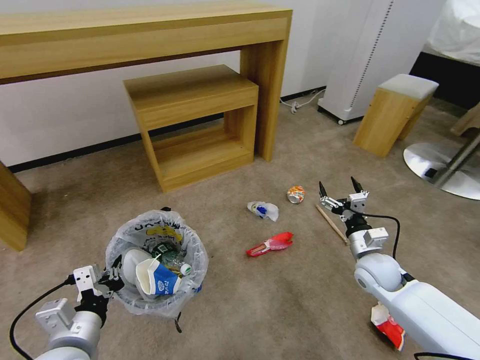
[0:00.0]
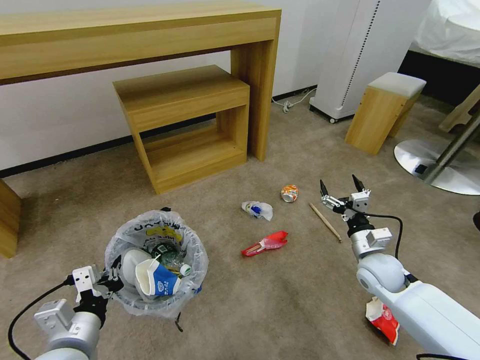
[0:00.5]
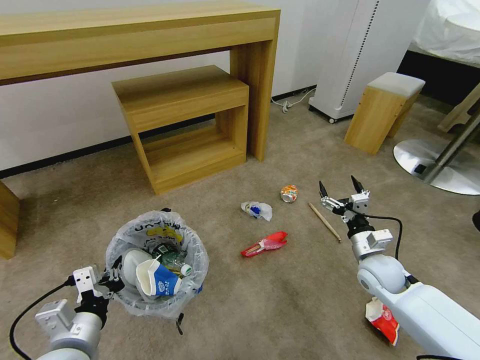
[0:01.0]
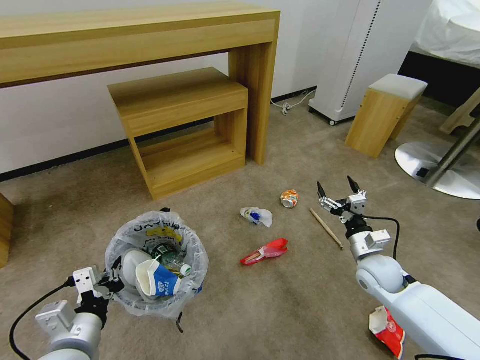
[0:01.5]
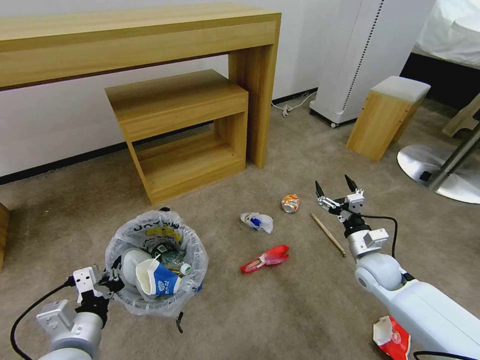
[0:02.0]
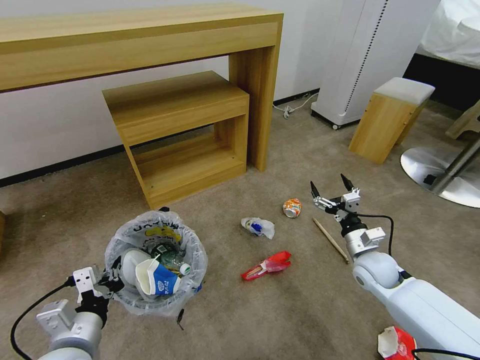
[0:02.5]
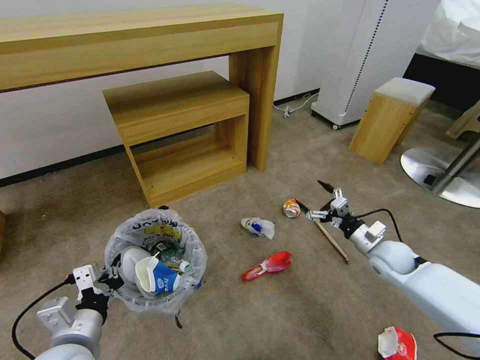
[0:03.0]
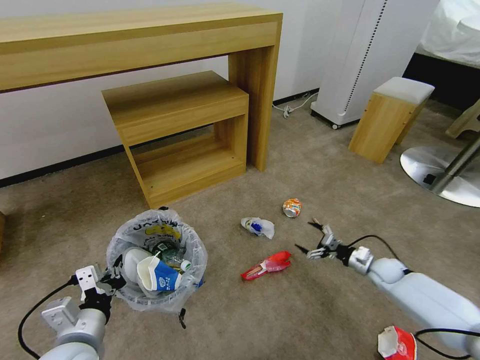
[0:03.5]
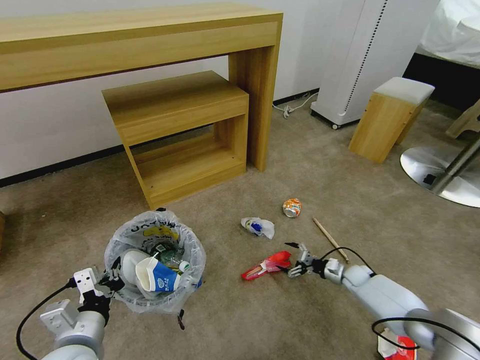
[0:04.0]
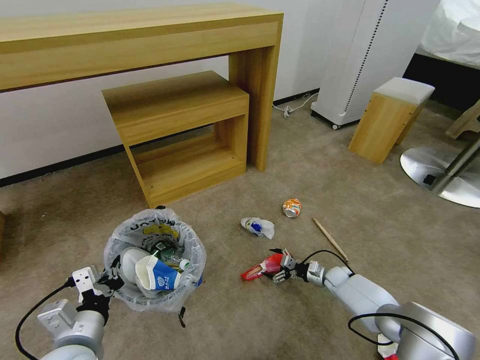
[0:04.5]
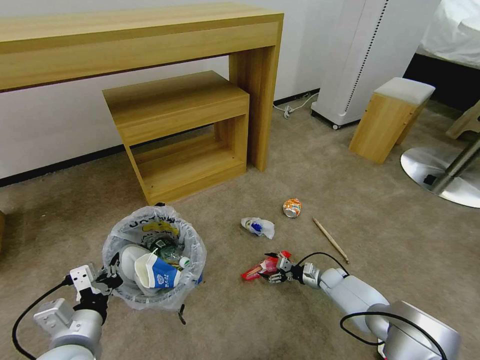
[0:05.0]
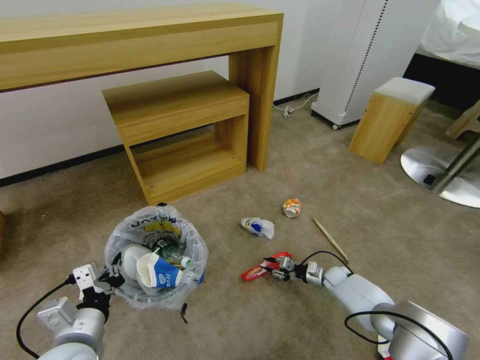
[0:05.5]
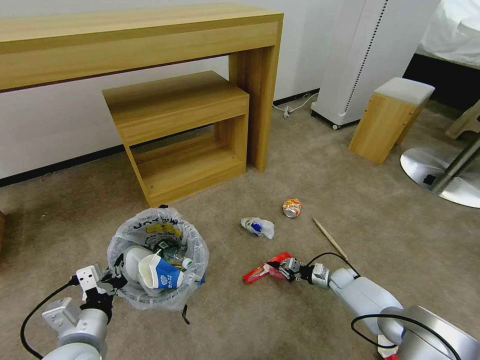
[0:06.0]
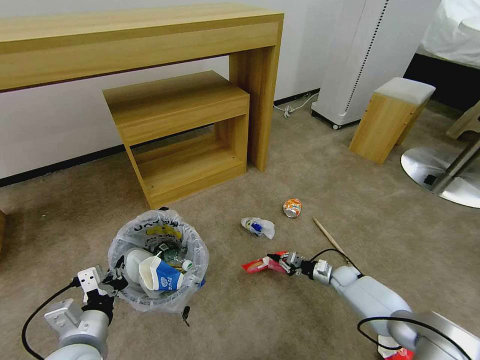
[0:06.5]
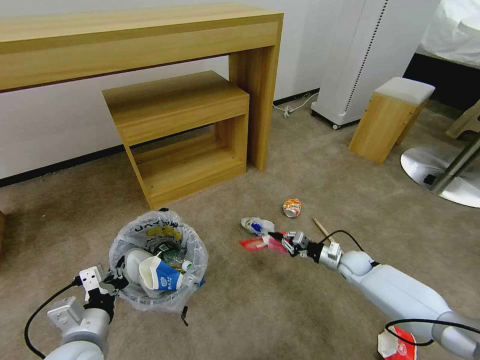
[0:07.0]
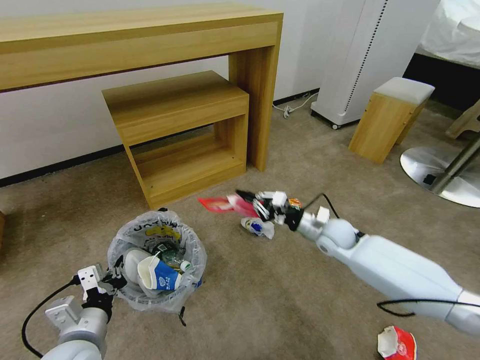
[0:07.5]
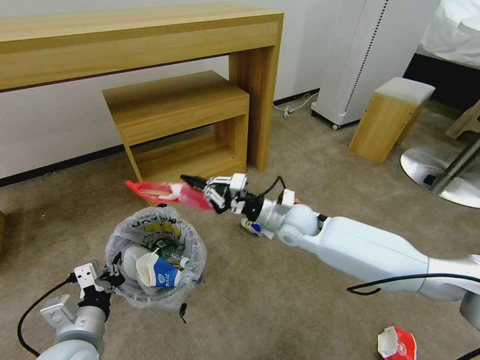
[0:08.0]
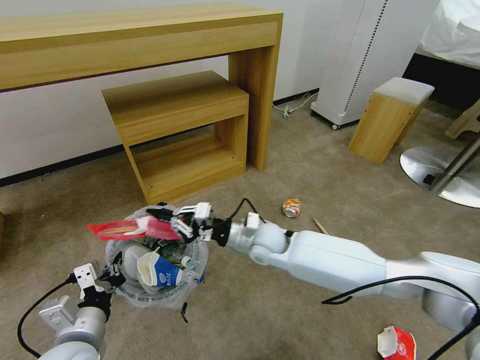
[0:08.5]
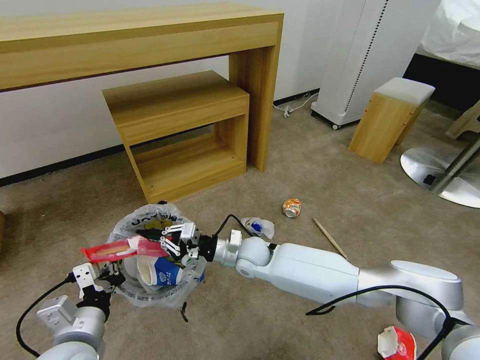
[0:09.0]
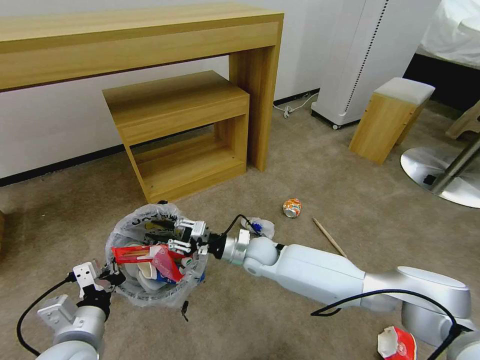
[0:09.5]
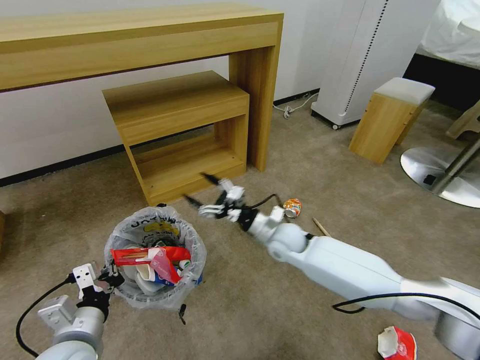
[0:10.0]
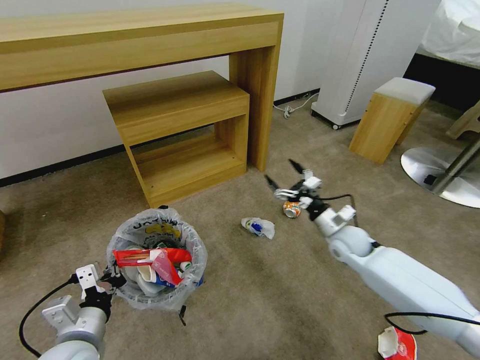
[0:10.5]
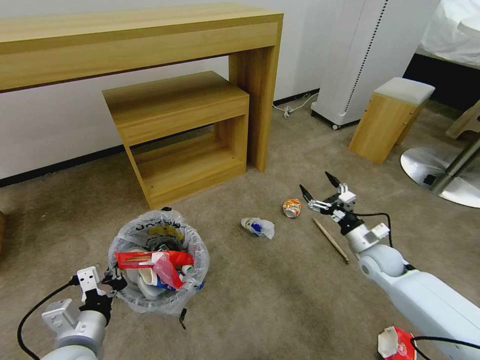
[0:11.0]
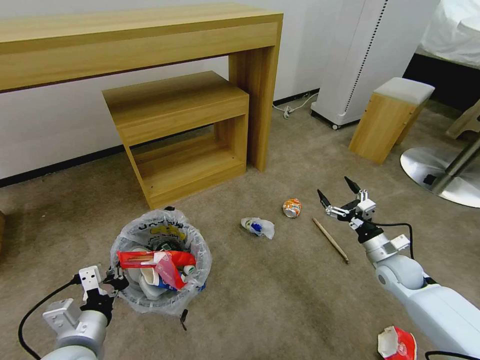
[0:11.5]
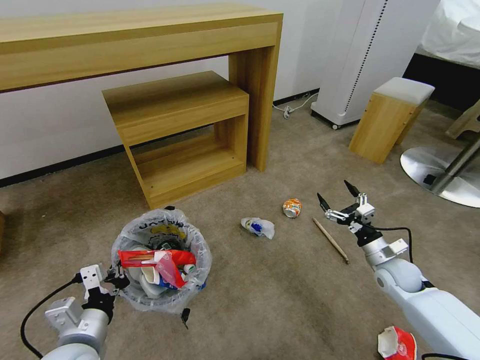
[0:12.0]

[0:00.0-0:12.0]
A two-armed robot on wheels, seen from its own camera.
Task of the whole recording: Pick up the trash bin and place the garbage on the floor into it.
0:00.0 to 0:02.0: The grippers move only a little.
0:02.0 to 0:04.0: The right gripper heads downward, covering some 20 cm.
0:04.0 to 0:06.0: The right gripper closes up.
0:06.0 to 0:08.0: The right gripper goes roughly 40 cm upward and to the left.
0:08.0 to 0:10.0: The right gripper moves downward, roughly 5 cm, and opens.
0:10.0 to 0:12.0: The right gripper travels to the right by roughly 25 cm.

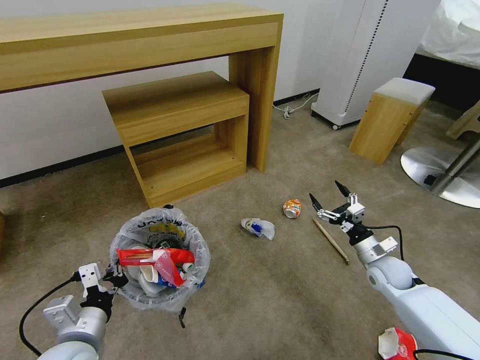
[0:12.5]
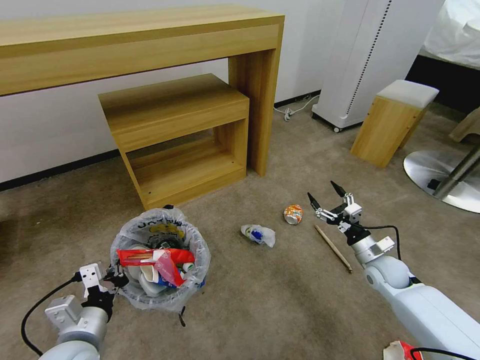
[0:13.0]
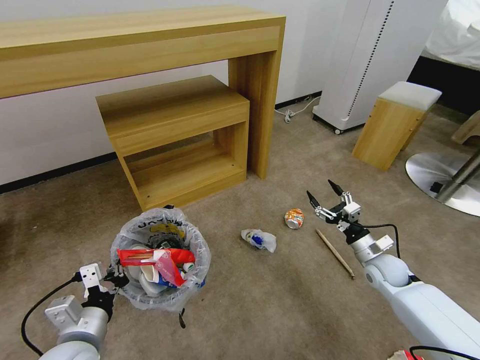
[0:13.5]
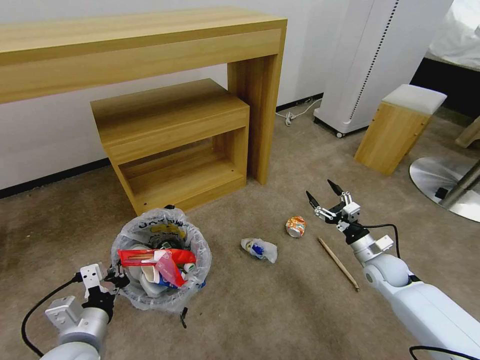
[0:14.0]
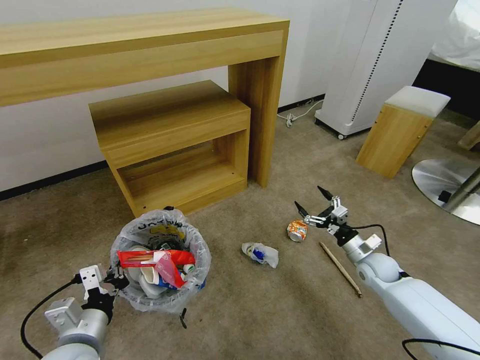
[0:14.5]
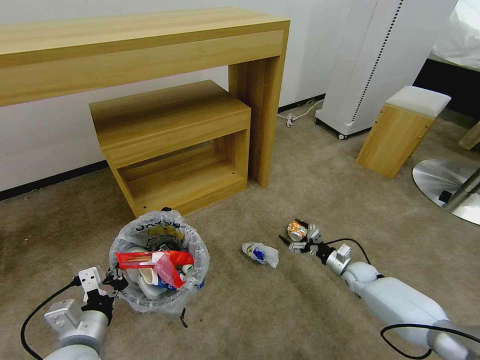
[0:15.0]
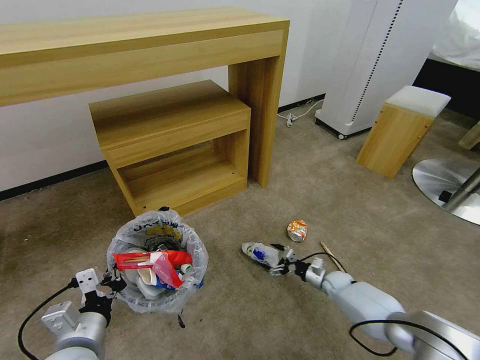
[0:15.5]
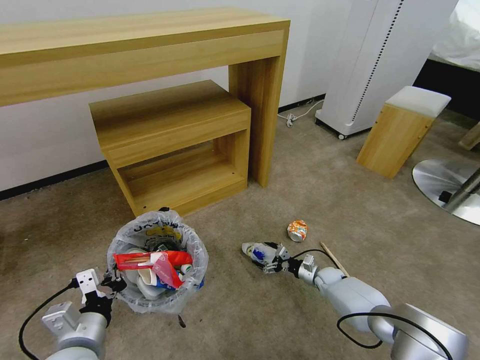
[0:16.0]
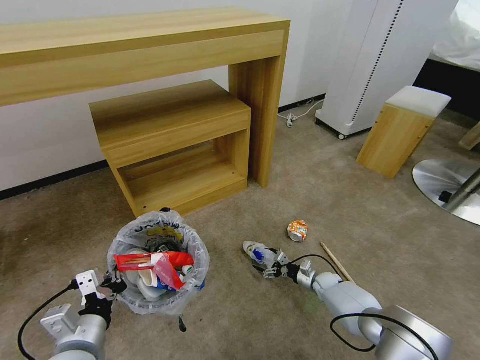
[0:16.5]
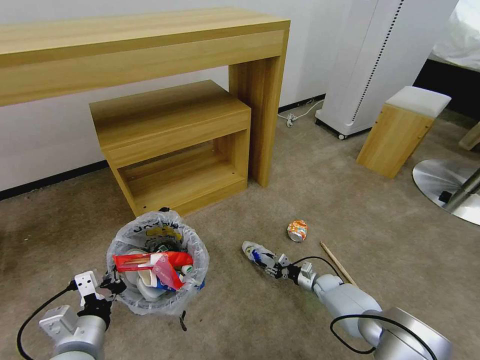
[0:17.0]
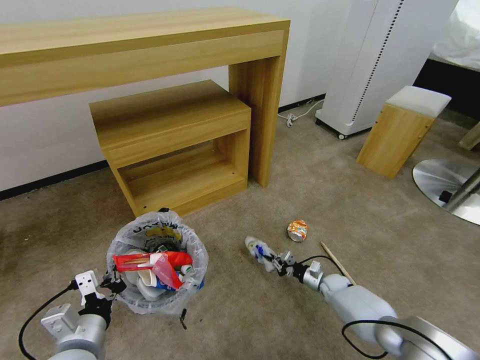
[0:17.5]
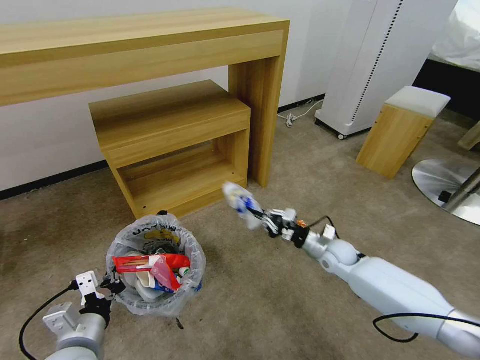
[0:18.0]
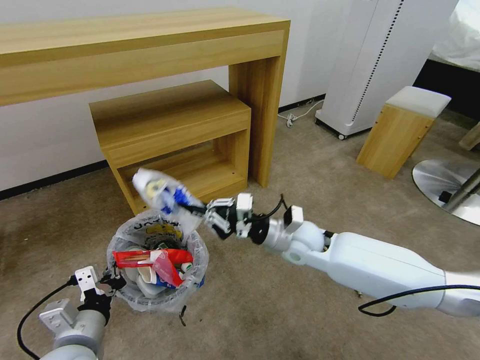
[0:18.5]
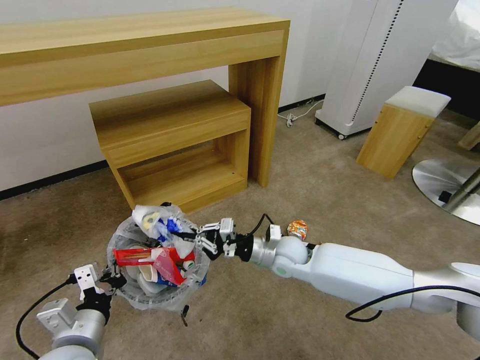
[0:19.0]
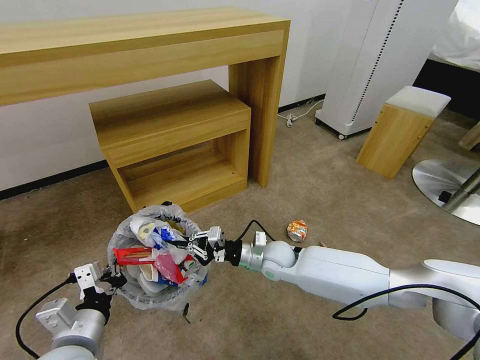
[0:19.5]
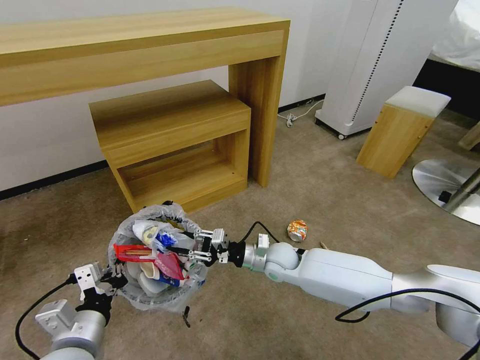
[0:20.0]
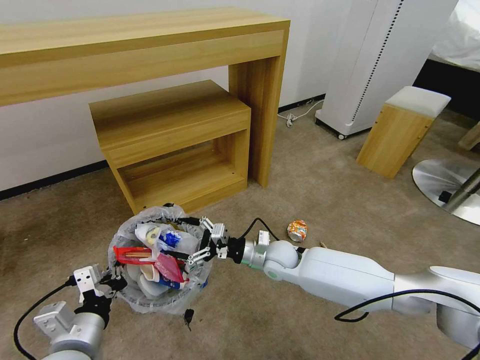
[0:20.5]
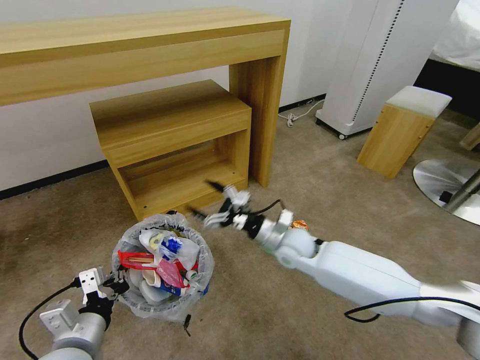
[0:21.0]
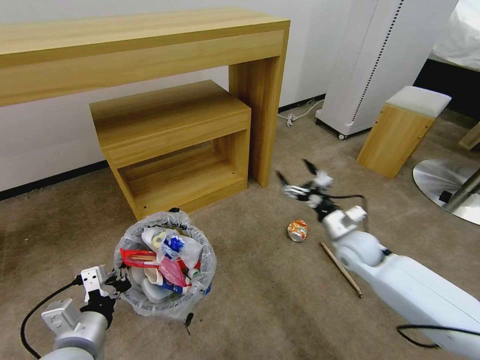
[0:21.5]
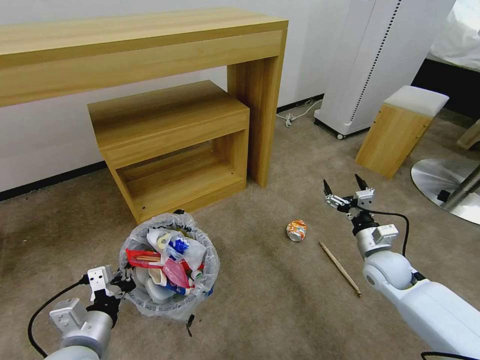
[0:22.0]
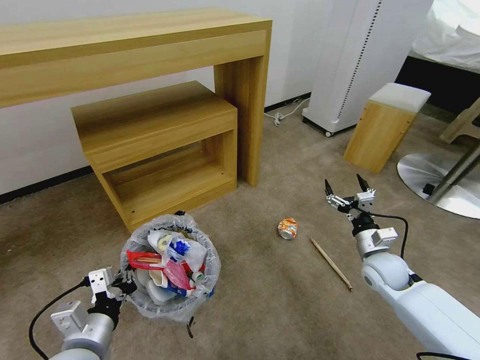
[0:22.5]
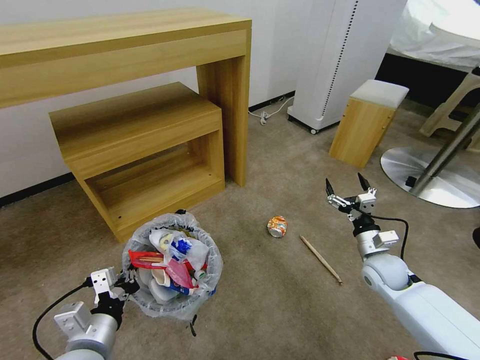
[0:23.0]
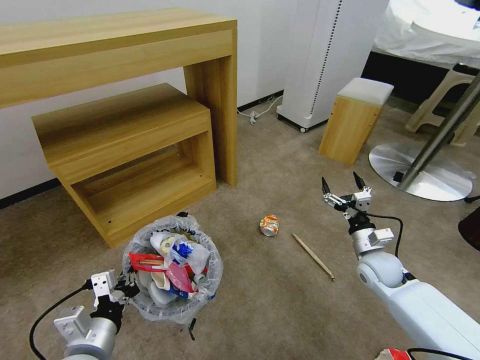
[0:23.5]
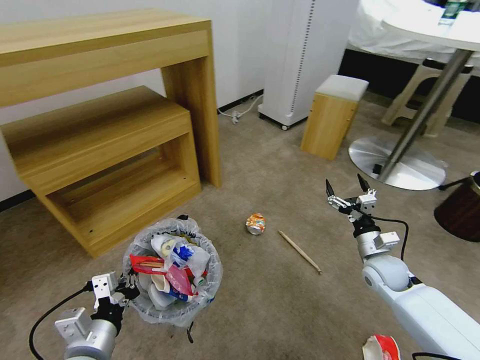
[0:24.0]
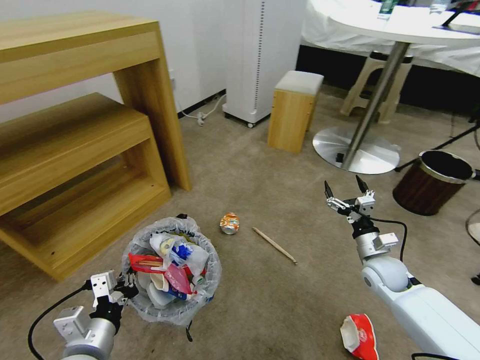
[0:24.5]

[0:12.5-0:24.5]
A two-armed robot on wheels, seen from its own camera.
Task of the whole recording: Pick up the trash bin and place the garbage on the floor into it.
0:14.5 to 0:16.5: The right gripper travels downward by some 20 cm.
0:16.5 to 0:18.5: The right gripper shifts roughly 35 cm upward and to the left, and closes.
0:18.5 to 0:20.5: The right gripper travels downward by about 10 cm, and opens up.
0:20.5 to 0:22.5: The right gripper goes approximately 25 cm to the right.

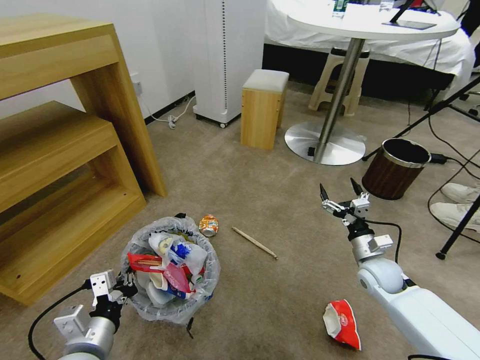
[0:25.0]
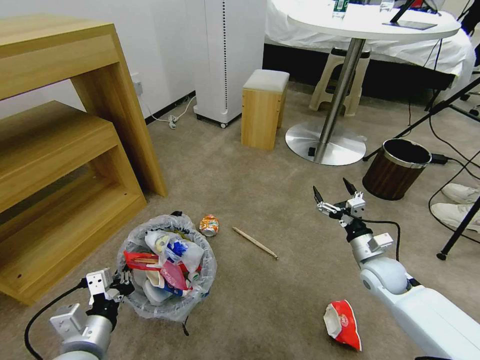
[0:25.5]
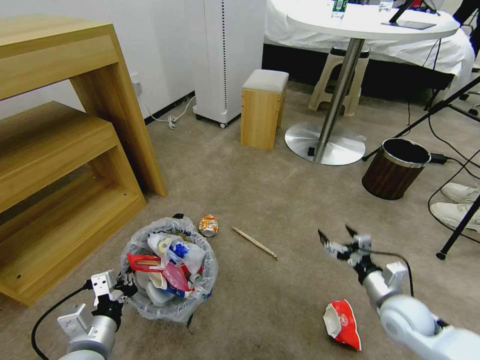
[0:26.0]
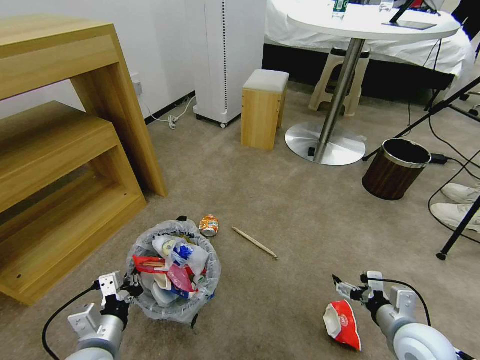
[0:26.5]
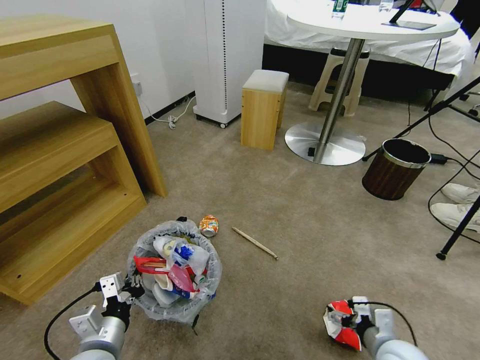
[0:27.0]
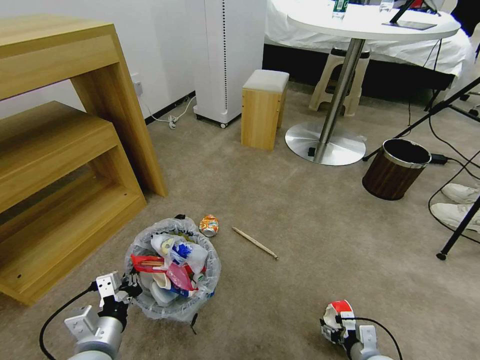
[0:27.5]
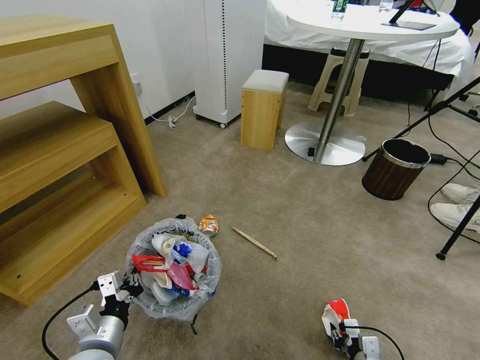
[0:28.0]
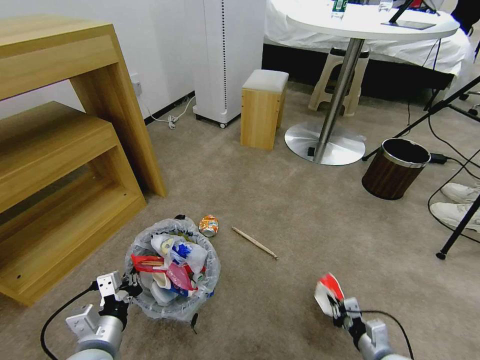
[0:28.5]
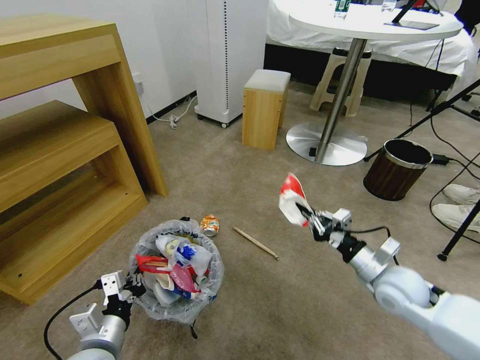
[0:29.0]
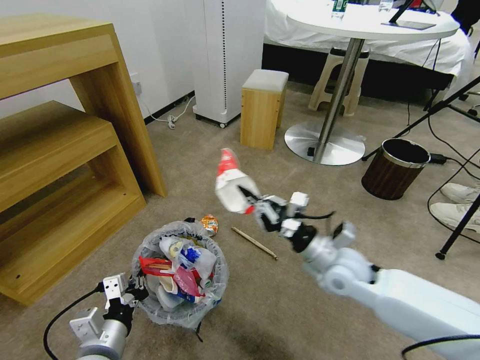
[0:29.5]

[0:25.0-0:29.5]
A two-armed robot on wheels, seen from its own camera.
Task of the whole recording: Pick up the trash bin and place the garbage on the floor into it.
0:25.0 to 0:27.0: The right gripper heads backward, covering about 20 cm.
0:27.0 to 0:29.5: The right gripper goes approximately 25 cm forward, to the left and upward, and closes its fingers.
